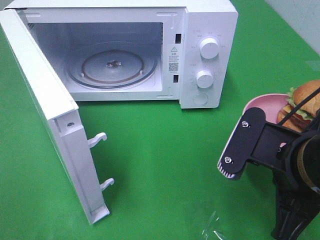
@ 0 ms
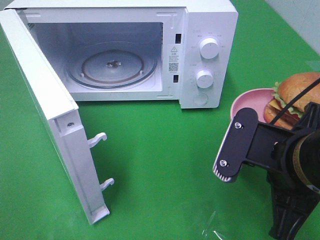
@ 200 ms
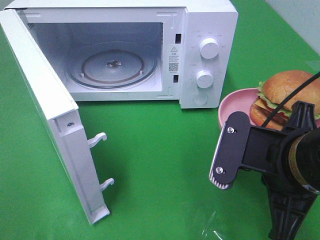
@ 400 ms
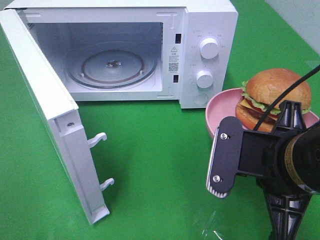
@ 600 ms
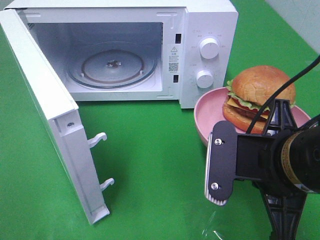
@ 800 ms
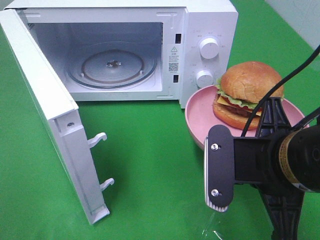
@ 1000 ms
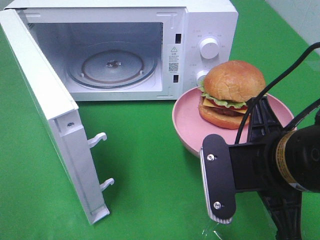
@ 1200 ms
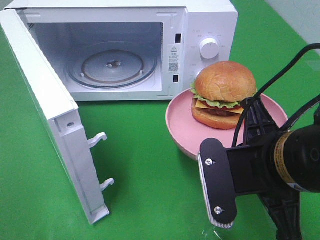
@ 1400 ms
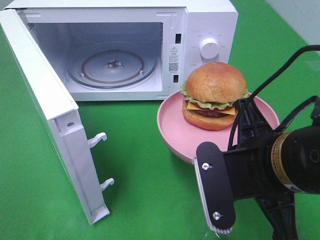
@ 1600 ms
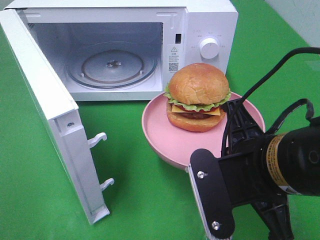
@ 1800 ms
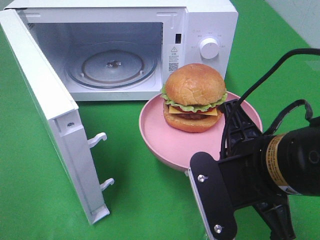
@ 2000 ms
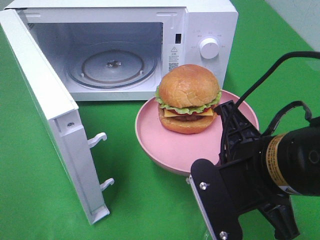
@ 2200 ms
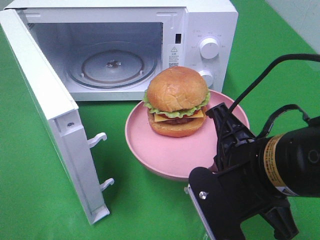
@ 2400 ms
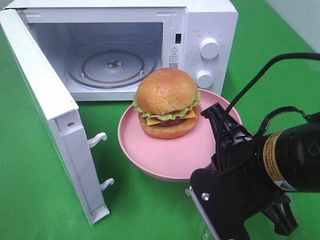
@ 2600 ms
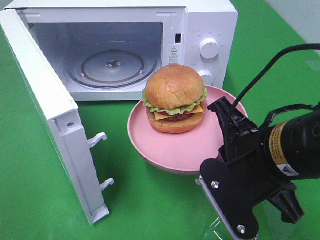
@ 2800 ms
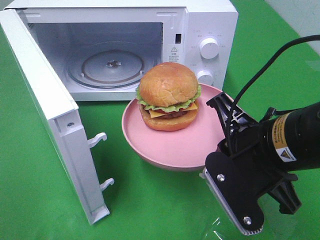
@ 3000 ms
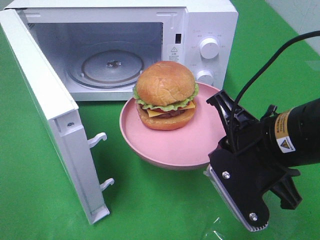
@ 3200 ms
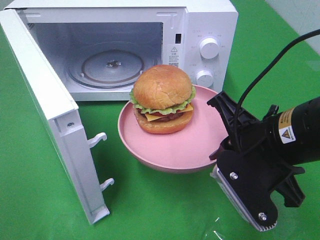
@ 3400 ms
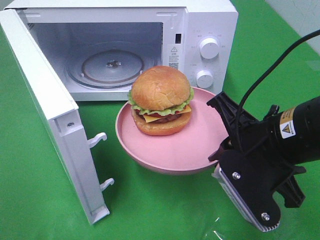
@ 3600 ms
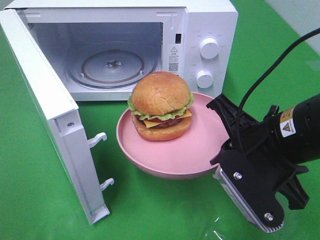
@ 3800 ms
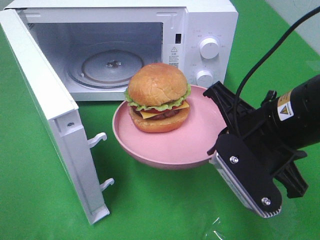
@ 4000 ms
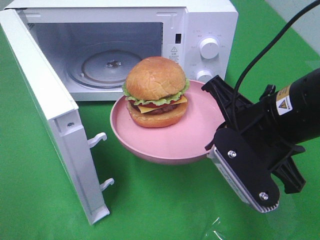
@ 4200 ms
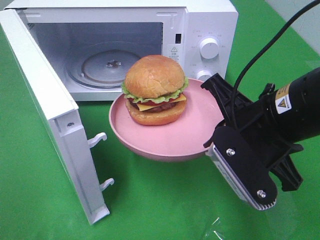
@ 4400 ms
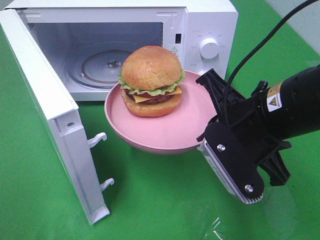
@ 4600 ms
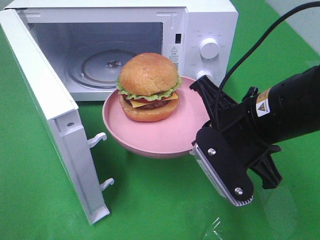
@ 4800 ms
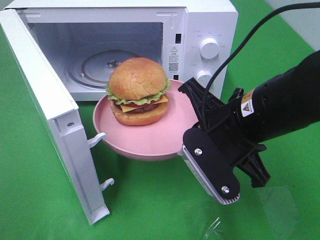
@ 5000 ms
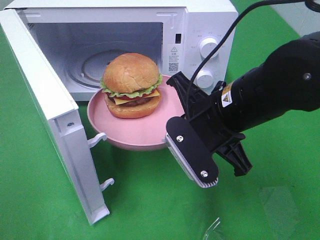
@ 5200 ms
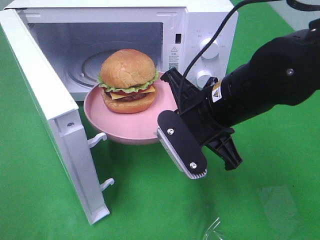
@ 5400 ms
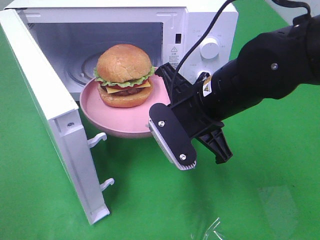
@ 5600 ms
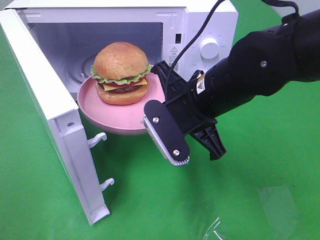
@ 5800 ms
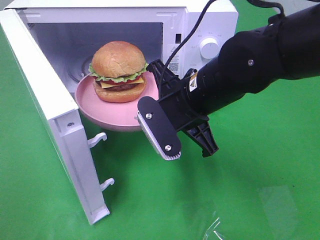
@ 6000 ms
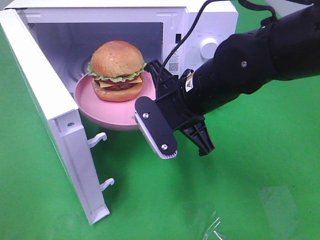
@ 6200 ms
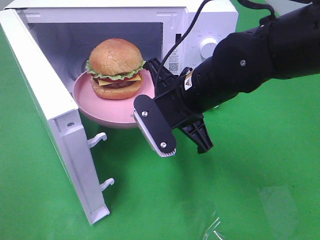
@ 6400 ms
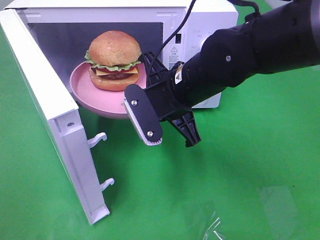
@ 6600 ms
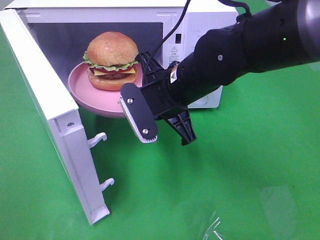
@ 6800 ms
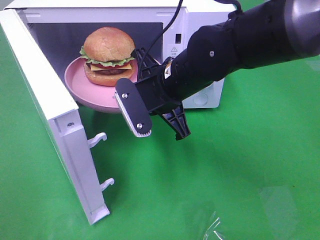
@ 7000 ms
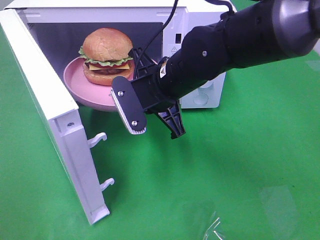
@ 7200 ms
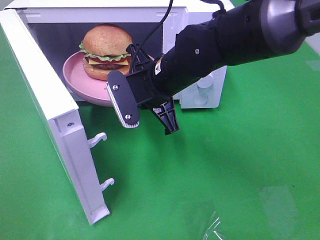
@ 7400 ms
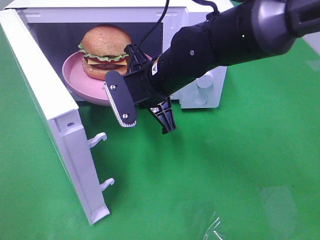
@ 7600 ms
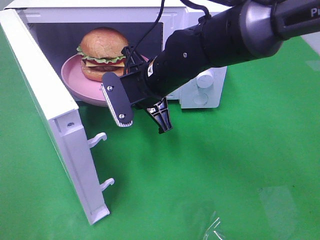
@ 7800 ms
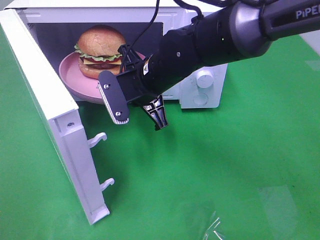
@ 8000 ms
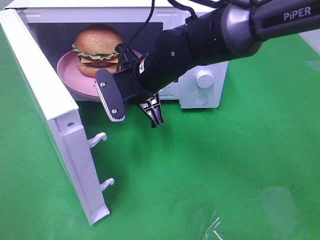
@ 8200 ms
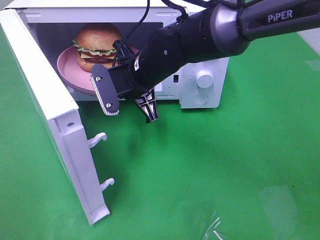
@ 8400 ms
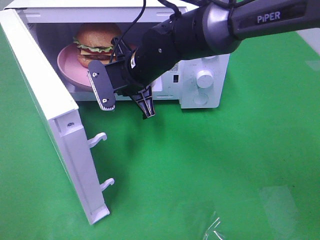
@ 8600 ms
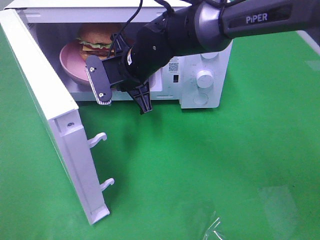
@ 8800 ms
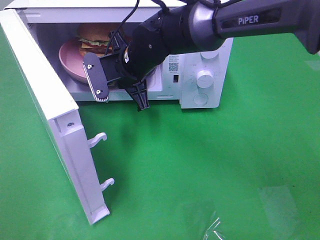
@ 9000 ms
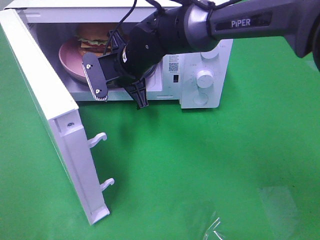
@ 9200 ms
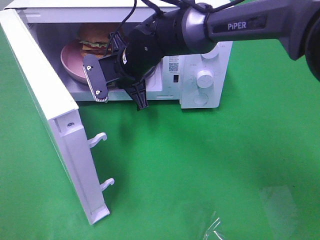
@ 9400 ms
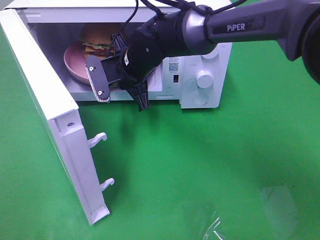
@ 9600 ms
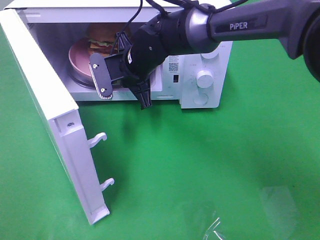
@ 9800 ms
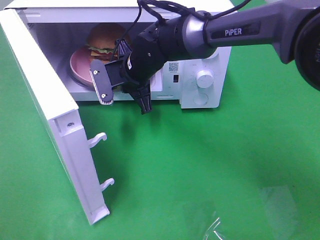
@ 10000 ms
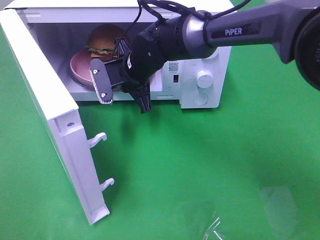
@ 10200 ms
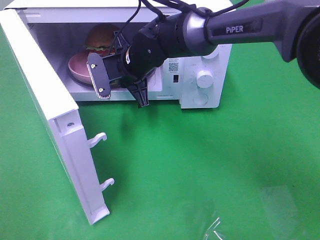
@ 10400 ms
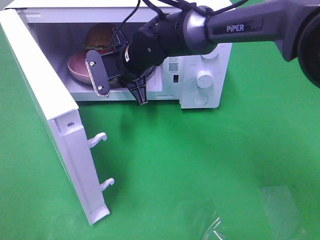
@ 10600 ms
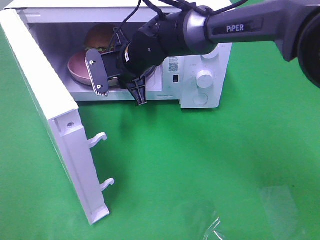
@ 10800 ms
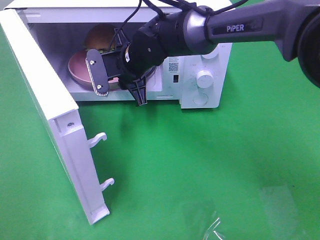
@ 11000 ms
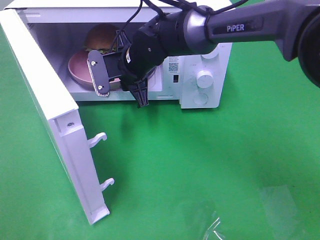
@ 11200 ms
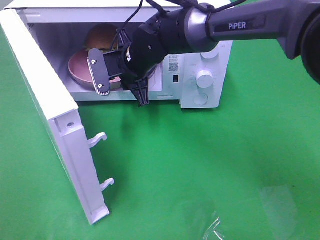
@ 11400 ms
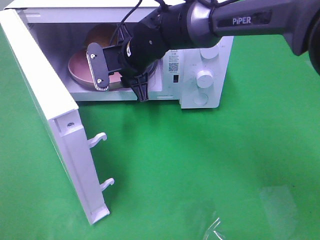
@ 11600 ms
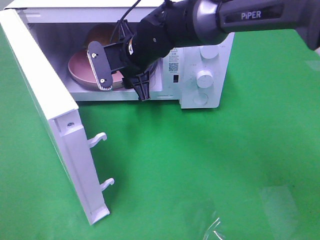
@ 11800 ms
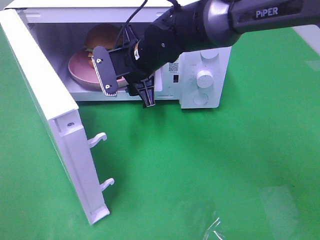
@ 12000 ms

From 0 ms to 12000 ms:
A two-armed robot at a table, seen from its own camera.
Task of the whole recording: Heat the burger.
From 3000 ms to 4400 ms: The grippers stay close to where they were, moving slightly.
From 4400 ms to 6000 ms: The right gripper travels to the left and forward by roughly 10 cm.
From 6000 ms to 7600 ms: The right gripper shifts about 5 cm forward.
From 7600 ms to 9000 ms: The right gripper travels forward by about 5 cm.
From 9000 ms to 10400 ms: The grippers stay close to where they were, moving slightly.
From 10400 ms to 12000 ms: The right gripper opens.

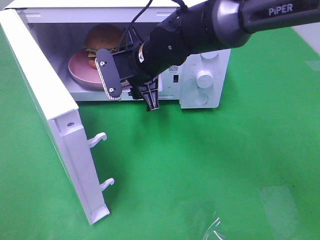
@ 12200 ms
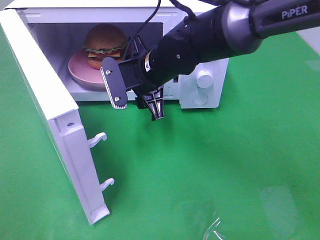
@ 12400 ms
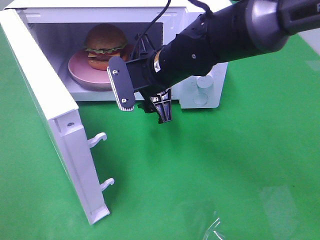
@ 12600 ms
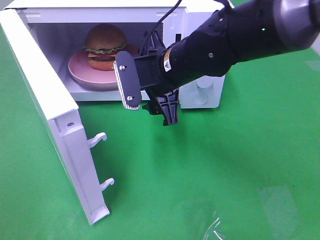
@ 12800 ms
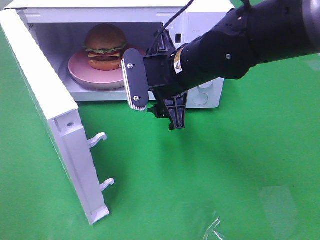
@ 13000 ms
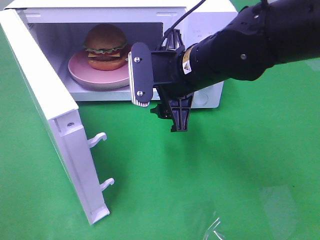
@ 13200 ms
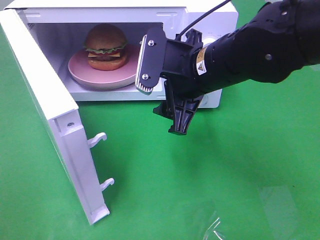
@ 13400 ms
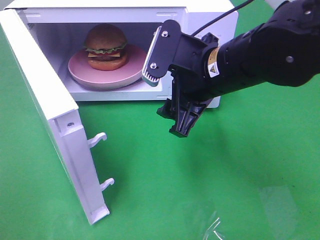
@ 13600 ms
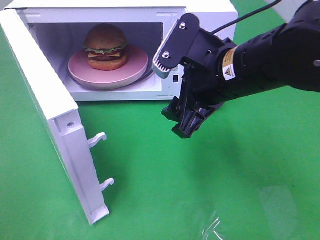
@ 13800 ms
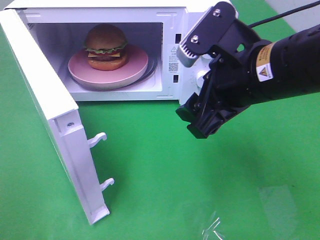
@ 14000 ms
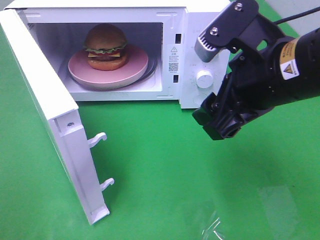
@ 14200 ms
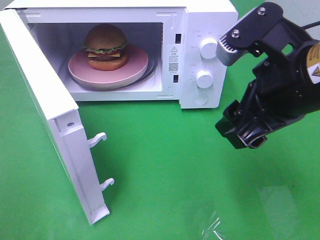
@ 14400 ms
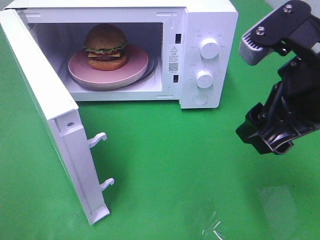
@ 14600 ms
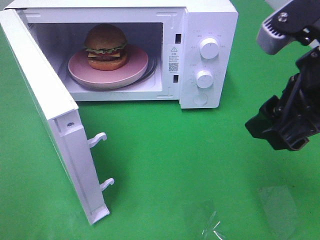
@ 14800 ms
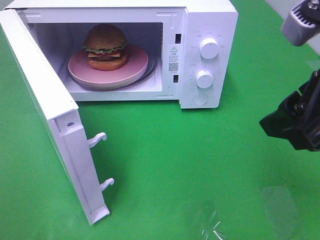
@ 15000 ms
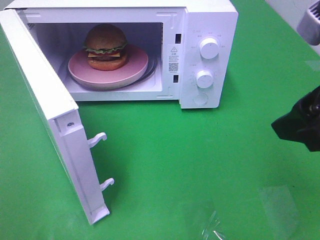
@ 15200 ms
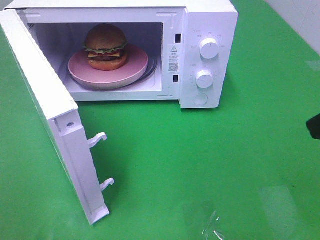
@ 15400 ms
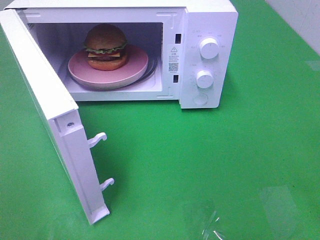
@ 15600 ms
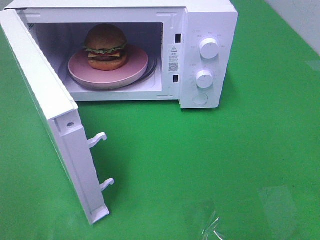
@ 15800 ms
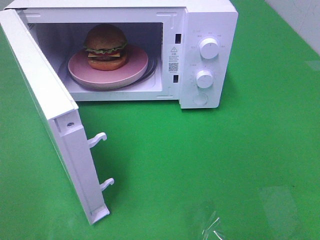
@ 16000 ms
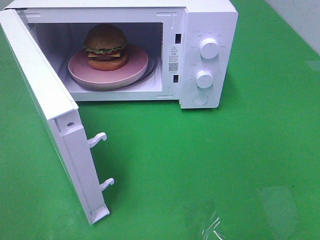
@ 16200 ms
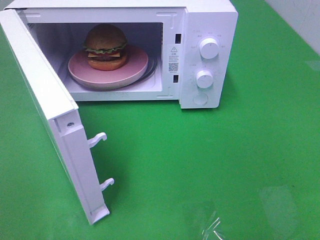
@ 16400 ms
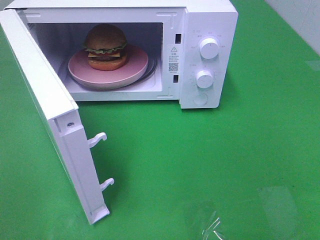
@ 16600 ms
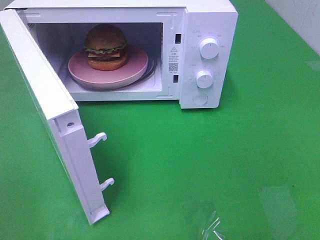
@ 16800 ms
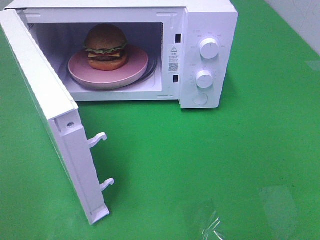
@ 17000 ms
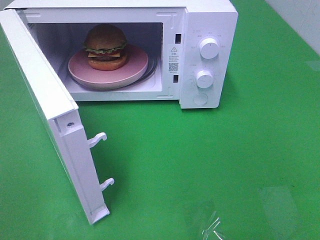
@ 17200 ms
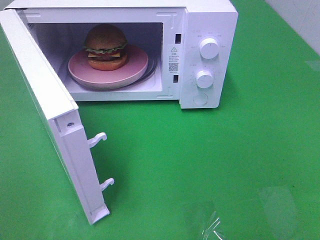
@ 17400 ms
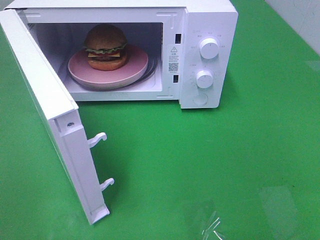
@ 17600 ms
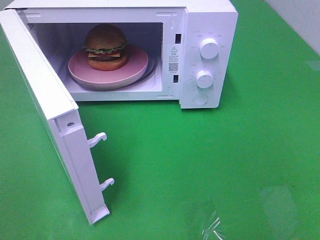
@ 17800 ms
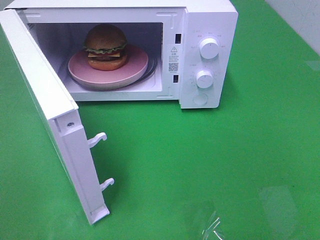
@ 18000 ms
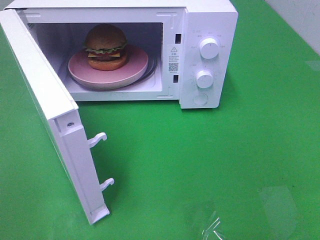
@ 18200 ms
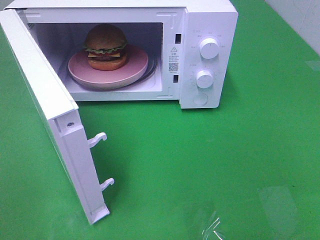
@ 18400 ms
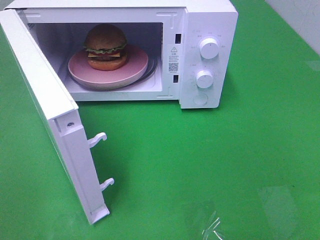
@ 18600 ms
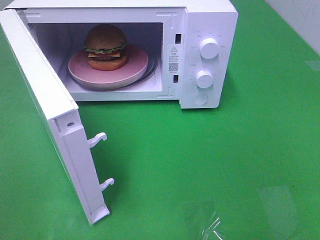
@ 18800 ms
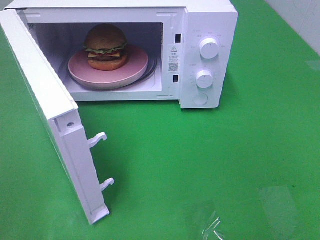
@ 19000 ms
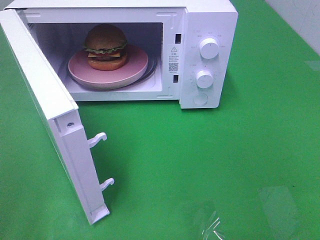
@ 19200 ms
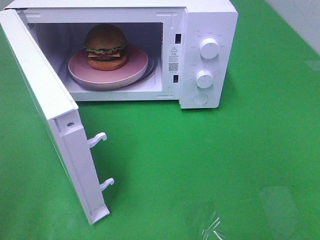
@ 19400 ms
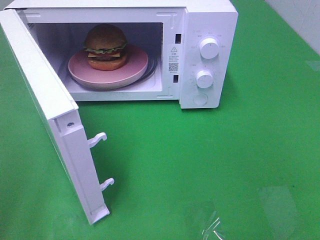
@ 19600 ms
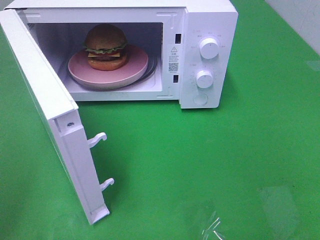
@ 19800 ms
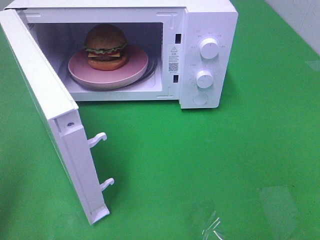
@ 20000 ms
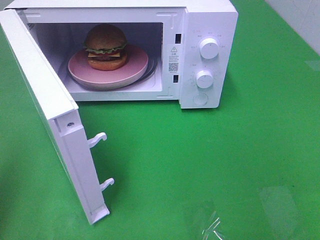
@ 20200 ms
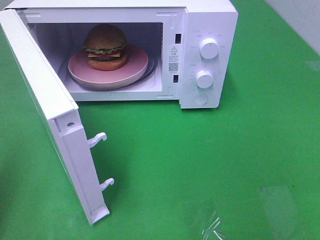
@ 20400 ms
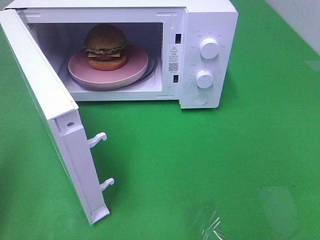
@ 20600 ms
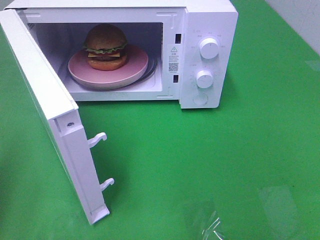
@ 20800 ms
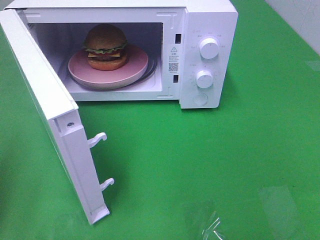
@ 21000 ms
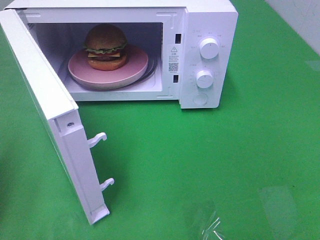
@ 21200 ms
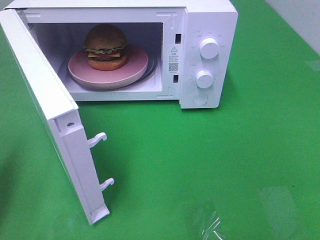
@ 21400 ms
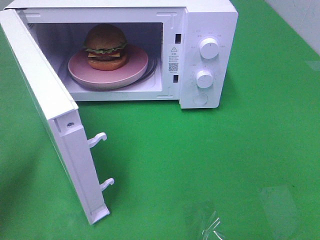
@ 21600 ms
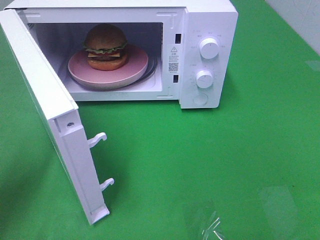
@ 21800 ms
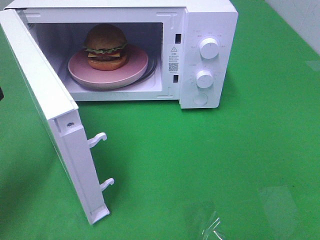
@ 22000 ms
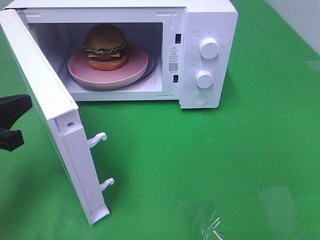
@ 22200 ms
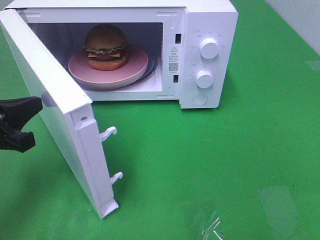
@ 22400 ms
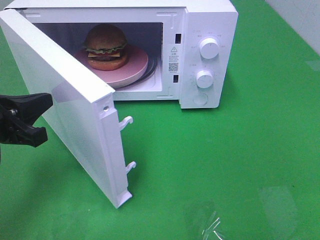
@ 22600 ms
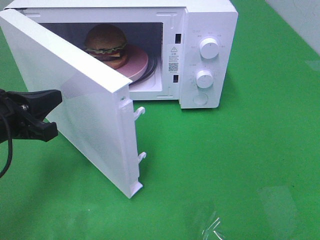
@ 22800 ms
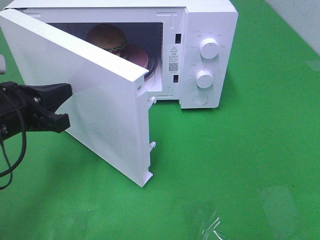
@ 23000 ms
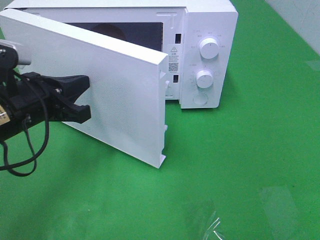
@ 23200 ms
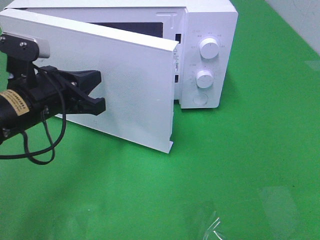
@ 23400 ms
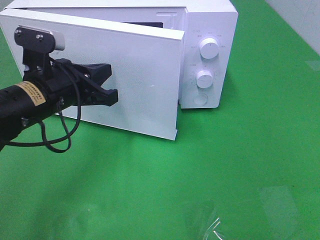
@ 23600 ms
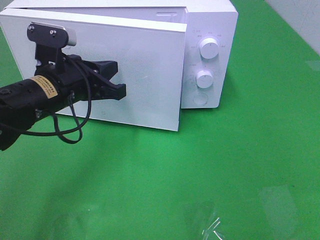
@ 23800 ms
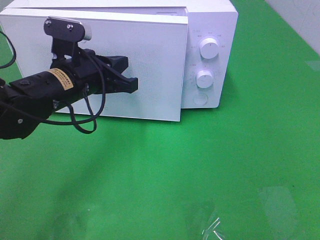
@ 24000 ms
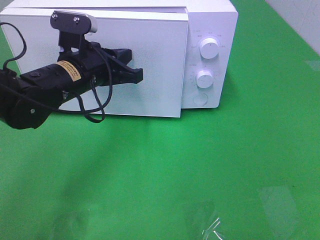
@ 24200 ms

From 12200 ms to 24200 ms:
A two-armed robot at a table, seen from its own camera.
Task of the whole recording: Heat the burger.
From 12200 ms to 13800 ms: The right gripper heads backward, to the right and upward, covering about 15 cm.
From 13800 ms to 15200 ms: The right gripper goes approximately 15 cm to the right, backward and upward.
From 15200 ms to 16600 ms: The right gripper moves backward and to the right, about 15 cm.
From 16600 ms to 18200 ms: Both grippers stay about where they are.
From 21200 ms to 22600 ms: The left gripper shifts roughly 10 cm to the right, forward and downward.
From 22600 ms to 24200 ms: The left gripper shifts approximately 15 cm to the right and forward.
